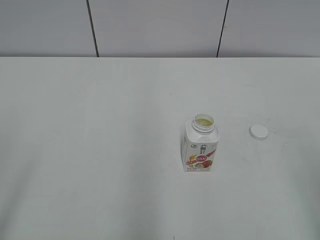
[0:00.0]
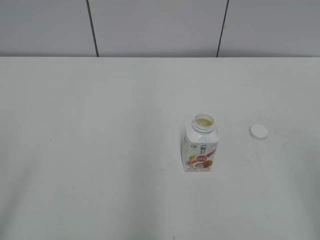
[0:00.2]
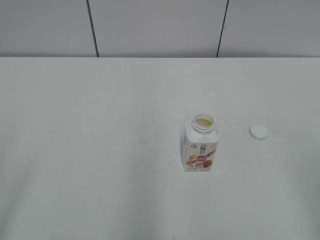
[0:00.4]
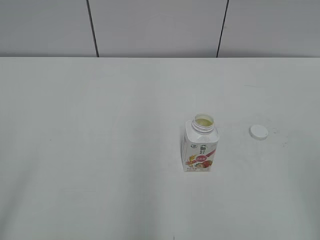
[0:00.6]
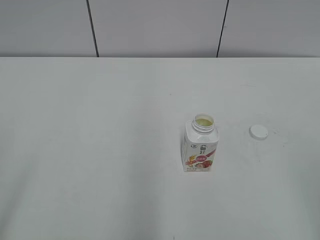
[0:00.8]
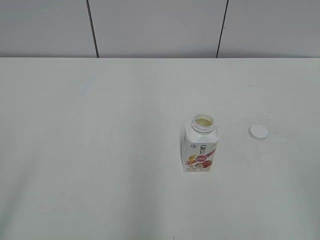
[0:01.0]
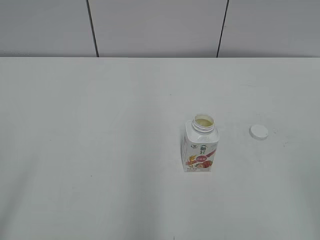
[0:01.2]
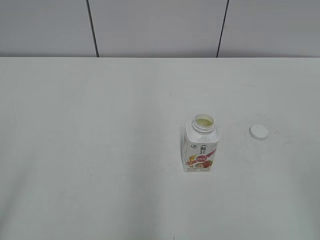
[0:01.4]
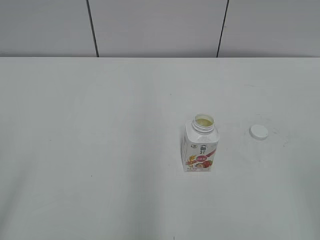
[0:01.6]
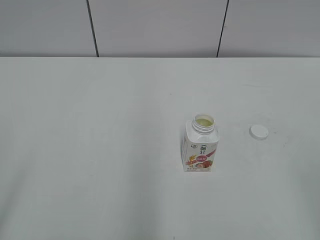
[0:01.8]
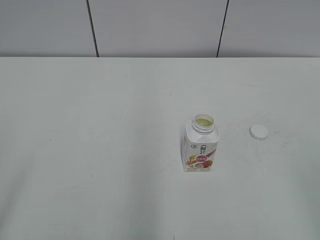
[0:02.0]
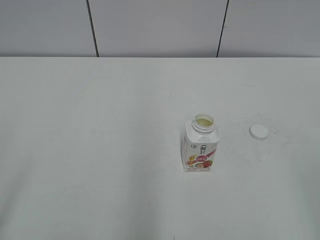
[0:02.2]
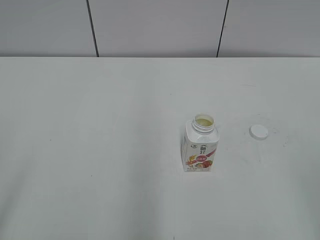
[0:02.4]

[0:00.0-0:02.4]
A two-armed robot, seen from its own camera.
0:01.2 to 0:02.4: Neither gripper changes place.
